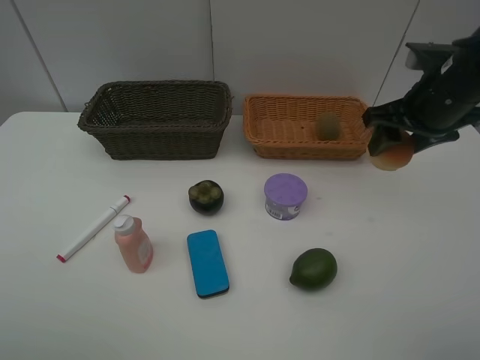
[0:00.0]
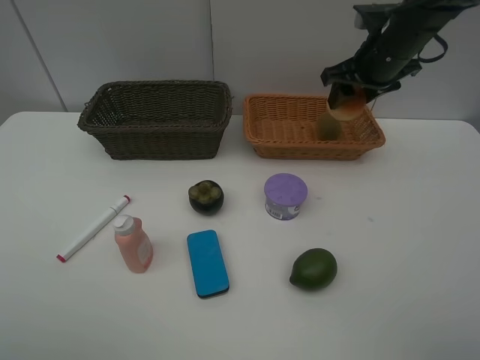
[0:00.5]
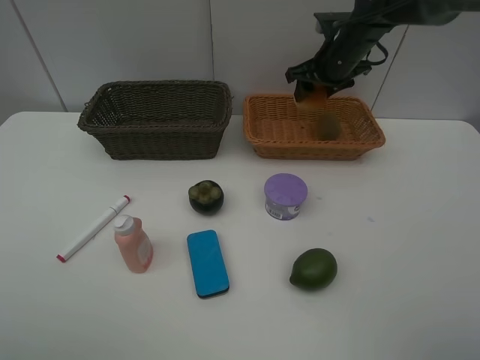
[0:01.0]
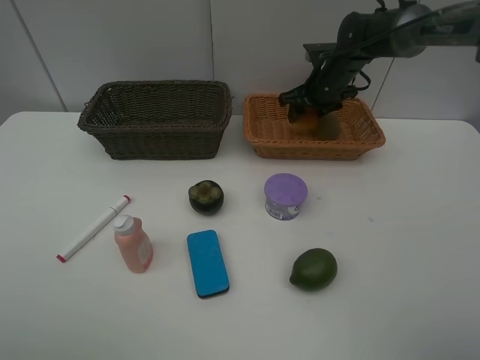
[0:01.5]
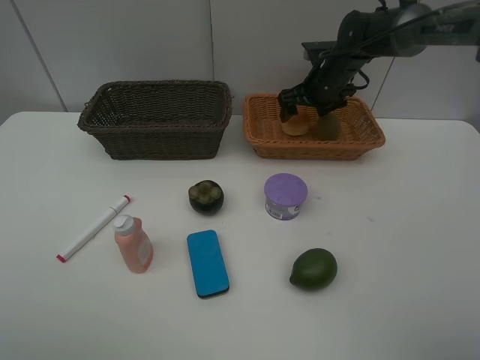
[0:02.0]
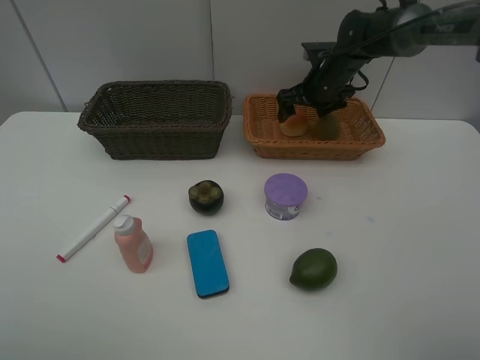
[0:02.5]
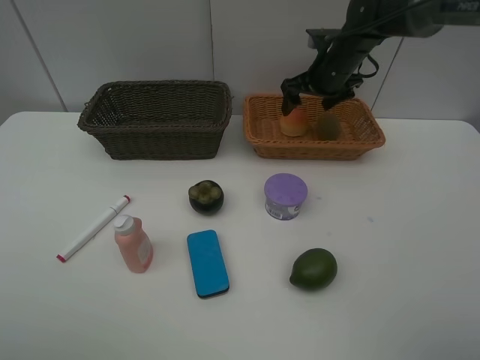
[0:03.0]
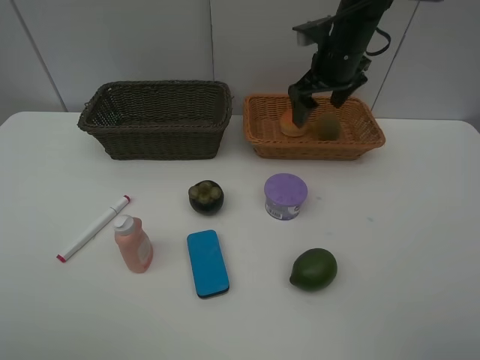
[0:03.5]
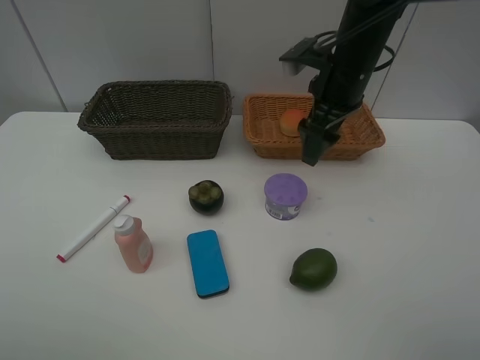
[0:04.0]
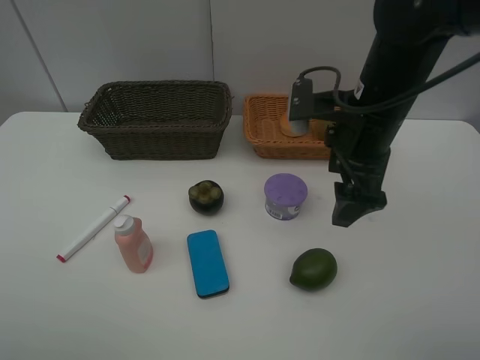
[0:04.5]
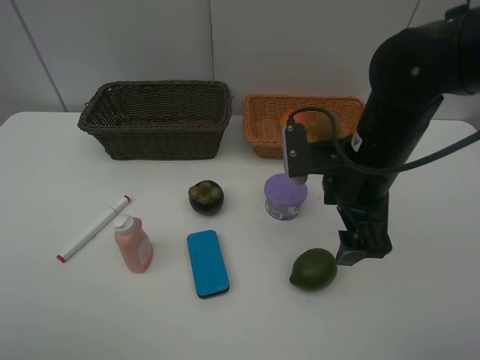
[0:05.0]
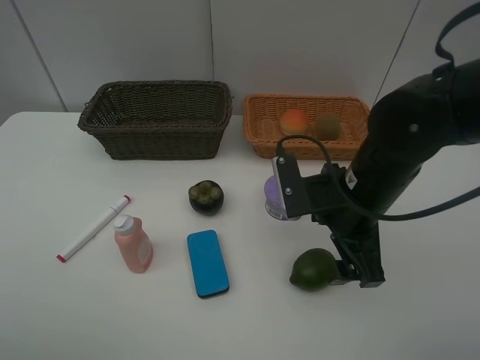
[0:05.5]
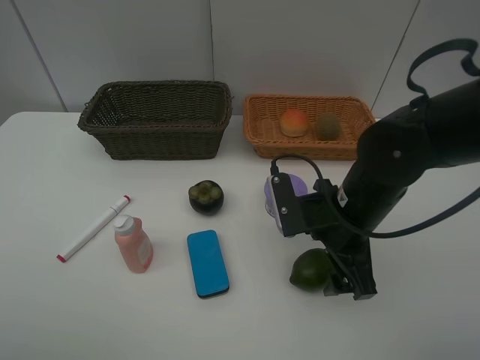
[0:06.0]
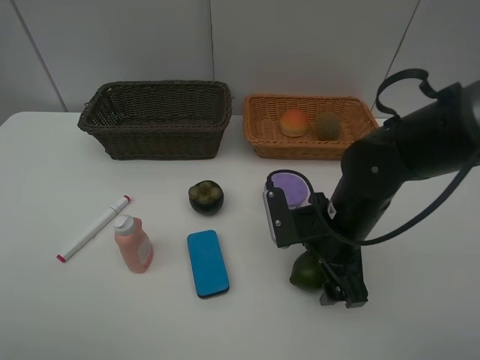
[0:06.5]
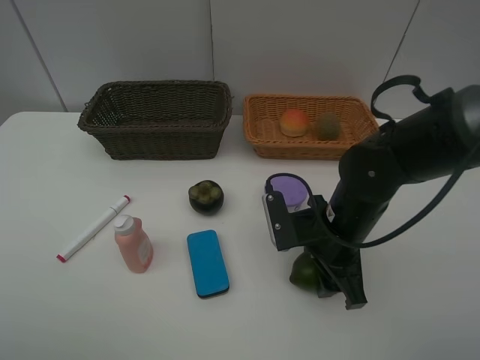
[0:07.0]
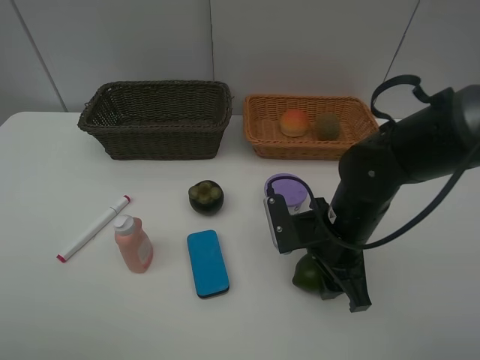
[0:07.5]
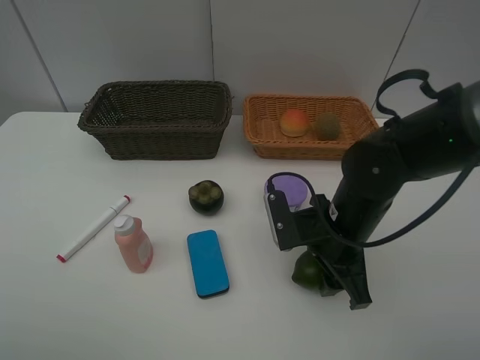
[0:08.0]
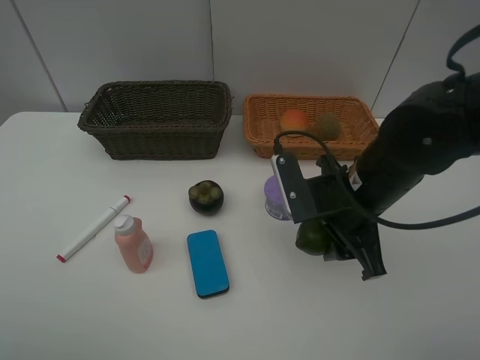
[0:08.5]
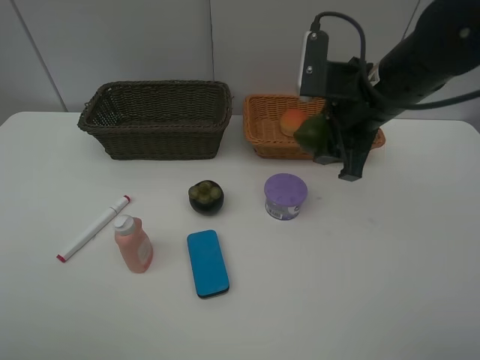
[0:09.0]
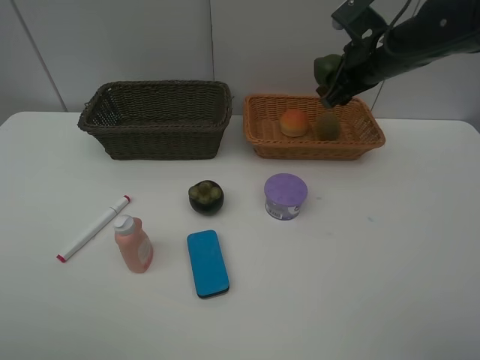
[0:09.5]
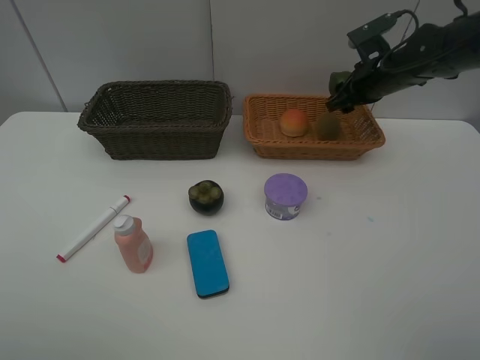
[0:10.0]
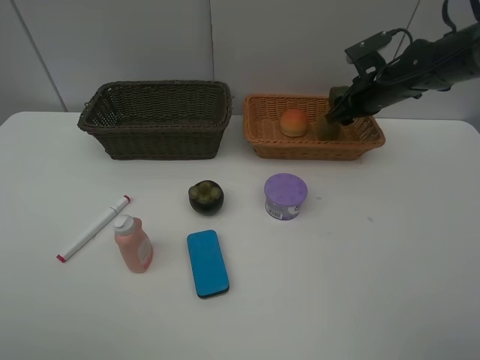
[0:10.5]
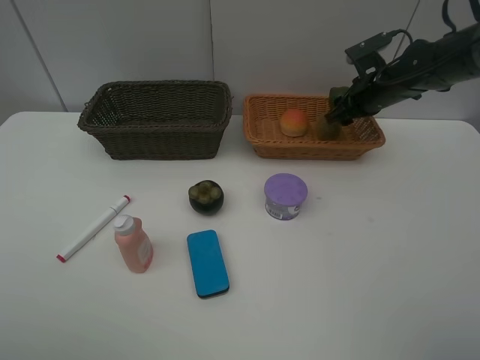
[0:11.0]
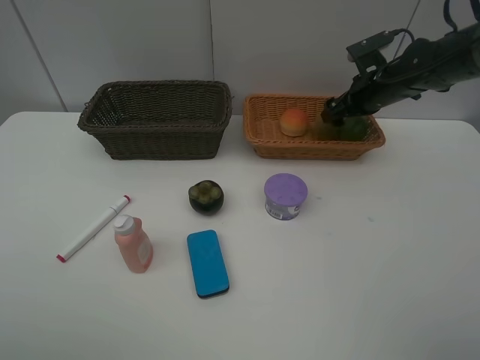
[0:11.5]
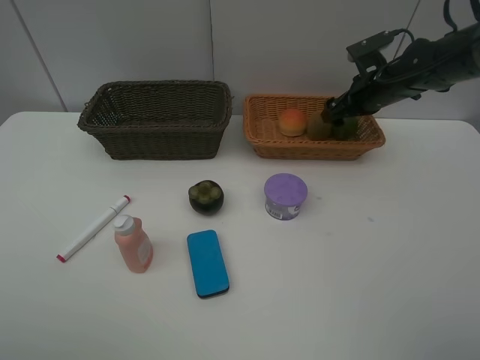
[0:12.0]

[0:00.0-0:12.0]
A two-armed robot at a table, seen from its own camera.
Task of the whole recording: Place multiple objects separately in different baskets.
Step, 0:00.0 to 0:03.0: Place the egg yolk pastry in the light basket with right gripper.
Step, 0:03.5 to 0:08.0: Pick up the lime with right gripper.
0:00.0 to 0:02.0: The right gripper moves forward, downward and to the left, about 20 cm, and opens.
0:02.0 to 0:04.0: The right gripper moves backward and upward, some 15 cm.
0:04.0 to 0:06.0: The right gripper shifts approximately 15 cm backward and downward.
0:06.0 to 0:08.0: The right gripper closes its fingers.
0:08.0 to 0:10.0: The right gripper shifts approximately 25 cm forward and to the right.
0:10.0 to 0:12.0: The right gripper opens up.

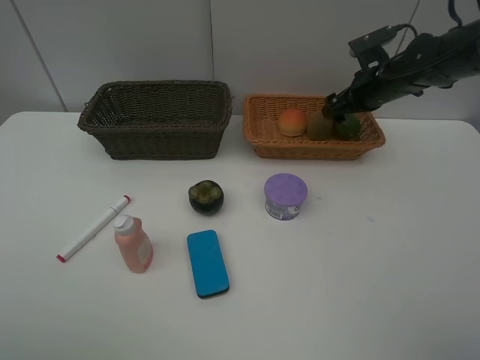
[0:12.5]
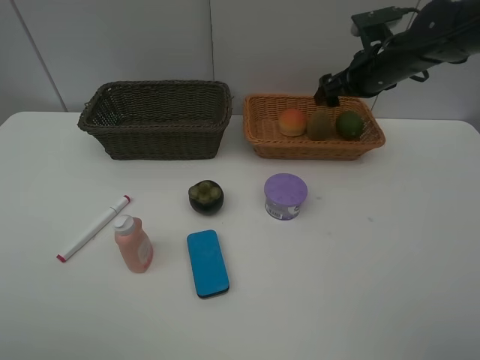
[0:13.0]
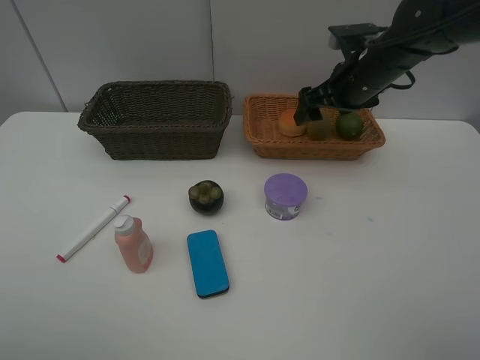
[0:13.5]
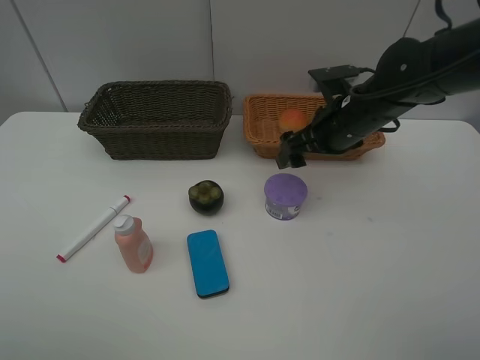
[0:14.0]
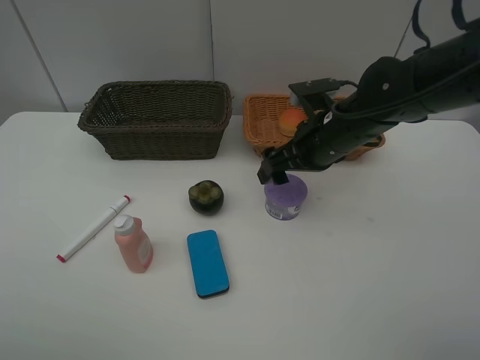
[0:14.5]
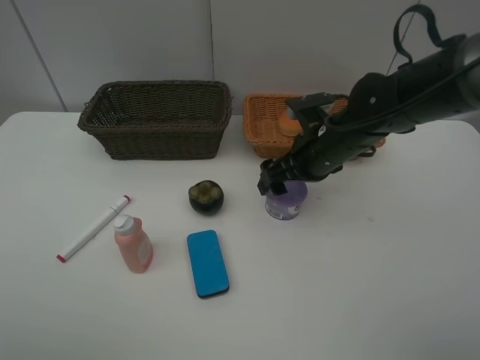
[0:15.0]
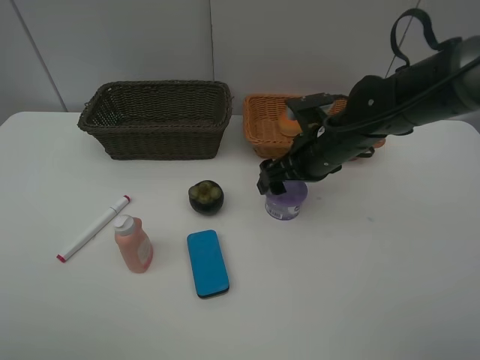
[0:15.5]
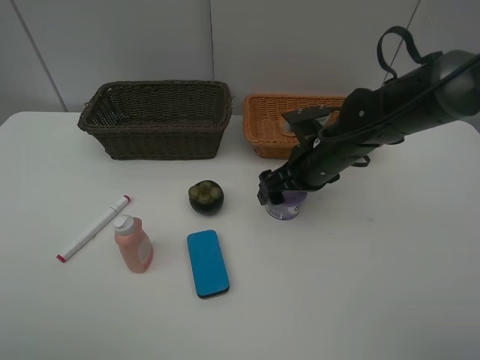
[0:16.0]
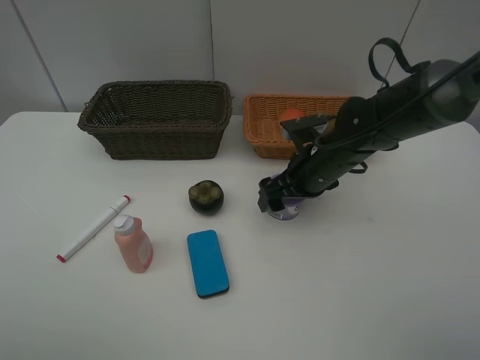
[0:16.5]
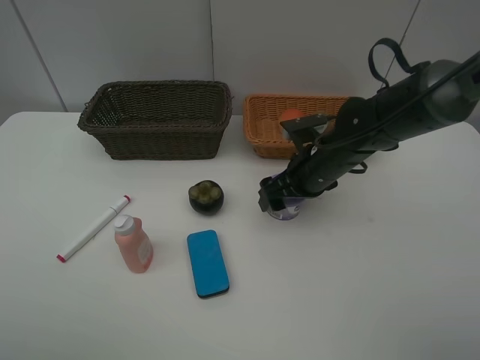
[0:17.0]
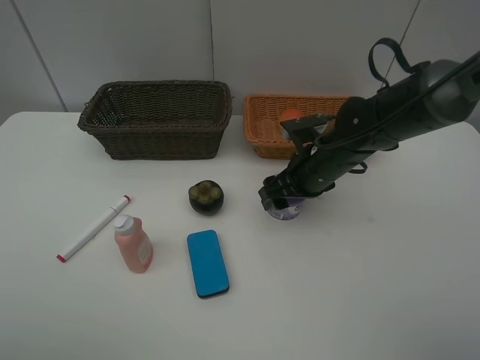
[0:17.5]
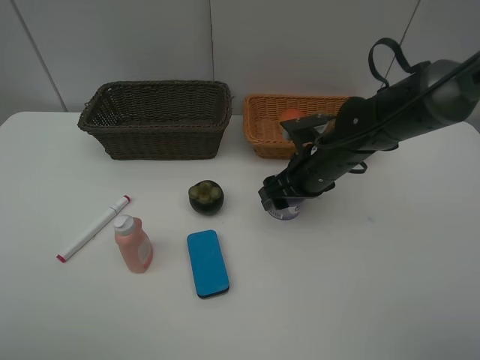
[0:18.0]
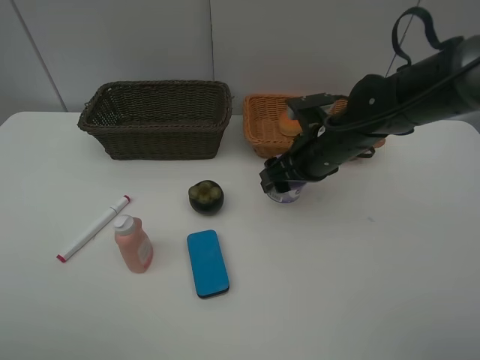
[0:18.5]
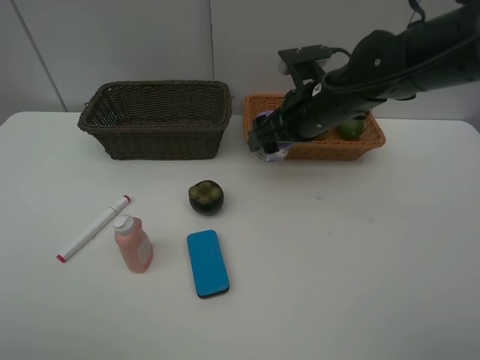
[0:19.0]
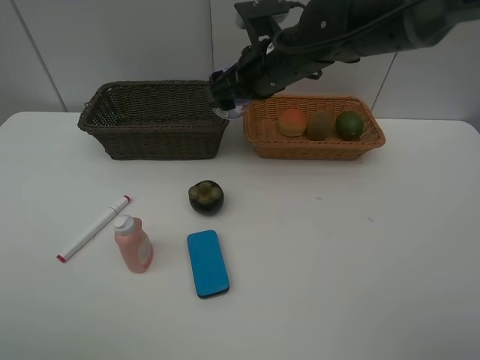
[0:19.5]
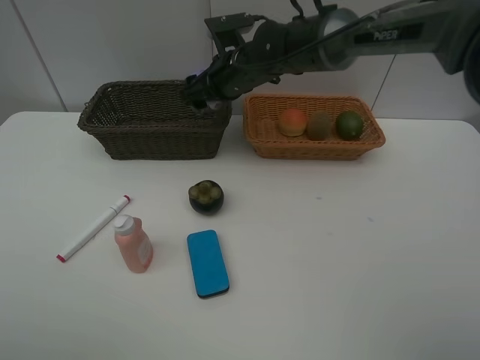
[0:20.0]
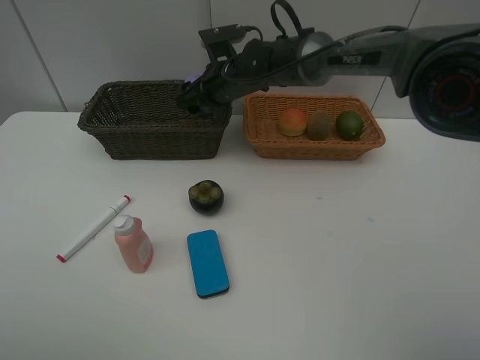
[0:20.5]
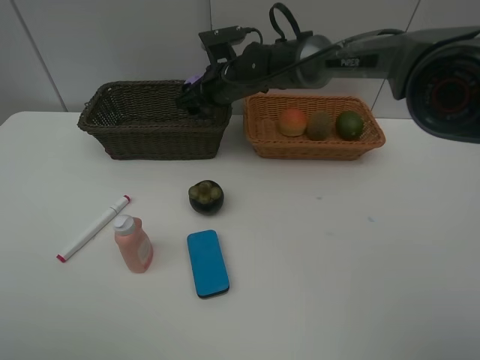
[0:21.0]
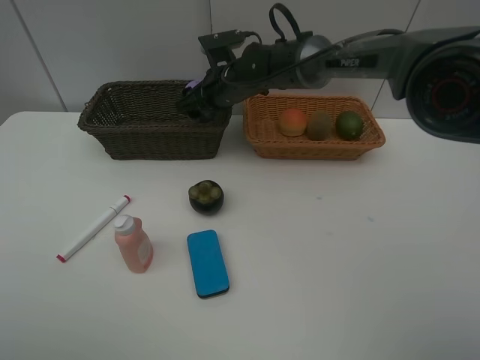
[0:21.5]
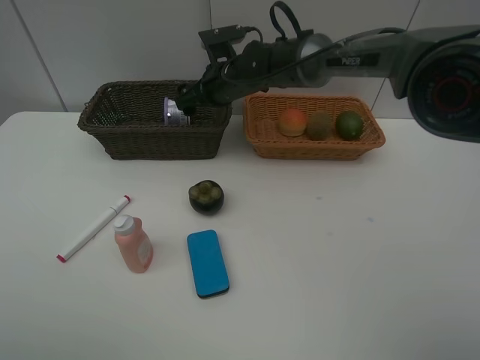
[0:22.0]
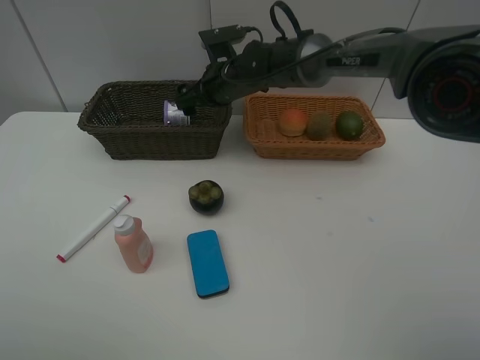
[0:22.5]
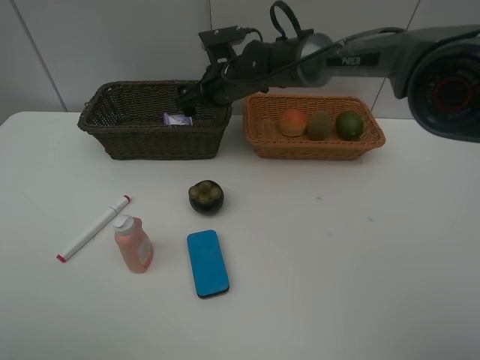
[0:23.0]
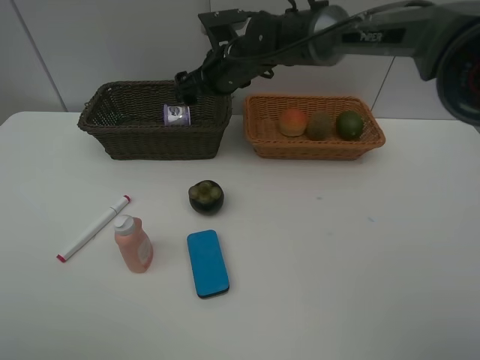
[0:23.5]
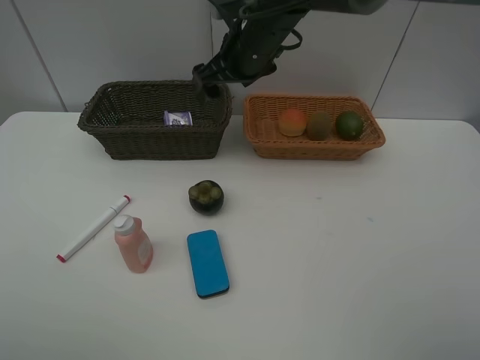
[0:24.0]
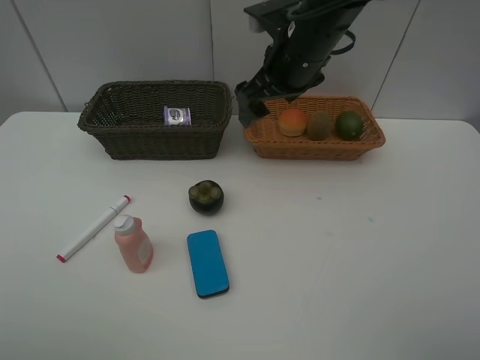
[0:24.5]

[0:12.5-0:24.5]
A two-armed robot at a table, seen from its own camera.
Task of the whole recording: Place multiple objects separately in different baskets.
Step, 0:13.0 to 0:18.5: Pick up Incense box with right gripper.
Step, 0:19.0 to 0:23.0: Place the Incense box in the dark basket with right gripper.
0:12.5 to 0:14.5: The right gripper is displaced backward and to the left by some 15 cm.
0:14.5 to 0:16.5: The right gripper shifts approximately 5 cm downward.
0:16.5 to 0:18.5: The right gripper closes up.
0:18.5 to 0:20.5: The right gripper is displaced forward and to the left by approximately 20 cm.
0:20.5 to 0:22.5: The right gripper opens up.
0:22.5 to 0:24.5: The right gripper goes approximately 15 cm backward, upward and to the right.

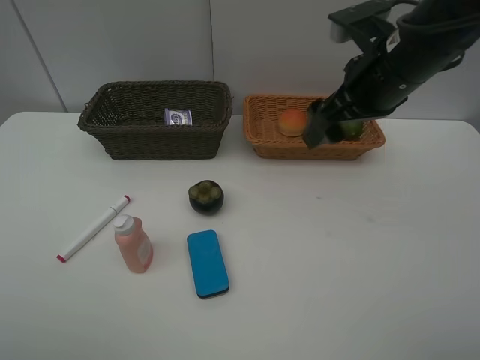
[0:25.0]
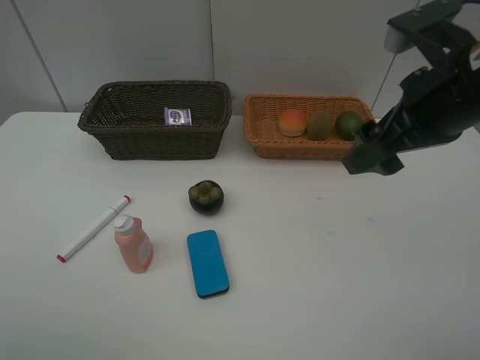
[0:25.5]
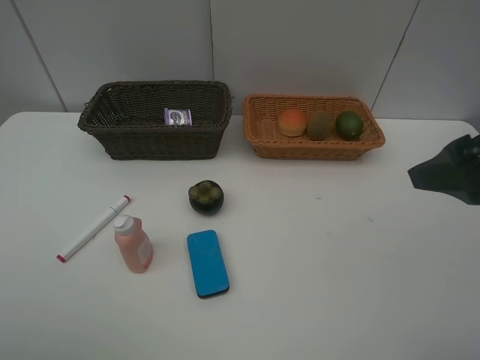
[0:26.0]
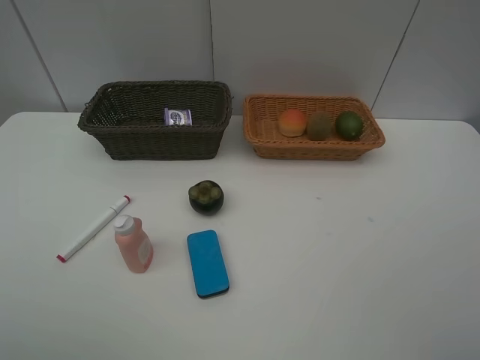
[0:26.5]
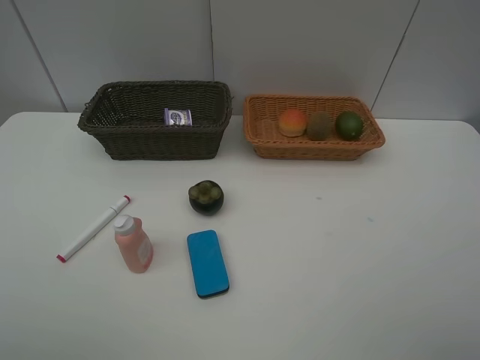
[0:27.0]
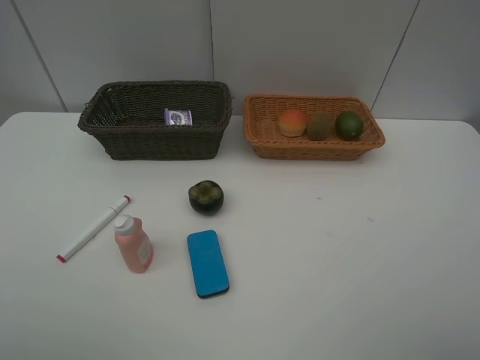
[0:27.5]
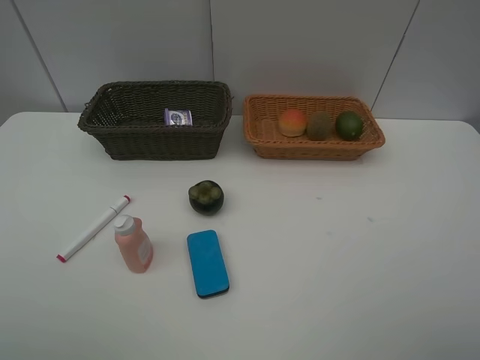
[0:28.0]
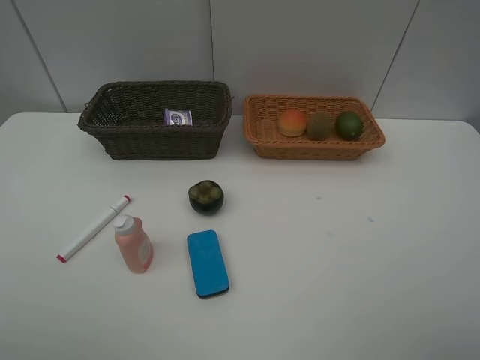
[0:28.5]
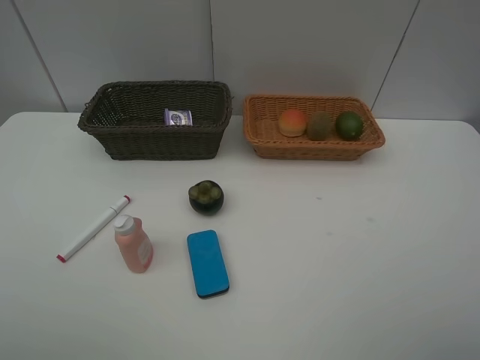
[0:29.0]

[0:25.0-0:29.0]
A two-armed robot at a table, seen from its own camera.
Task of the whole recording: Place multiple objects separately in different baskets.
0:25.0 to 0:27.0: The right gripper moves backward and to the right, roughly 30 cm.
